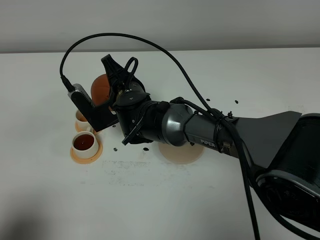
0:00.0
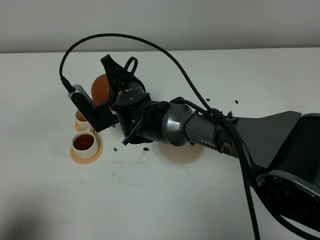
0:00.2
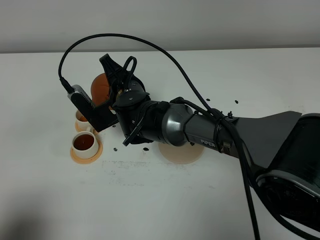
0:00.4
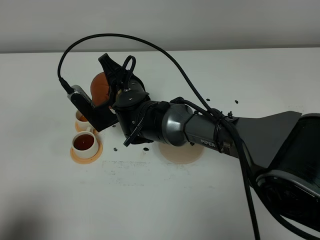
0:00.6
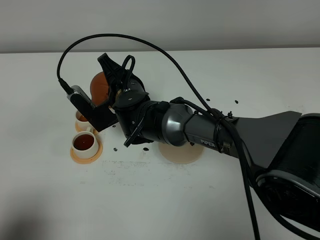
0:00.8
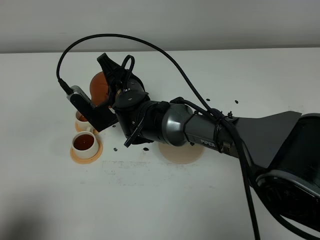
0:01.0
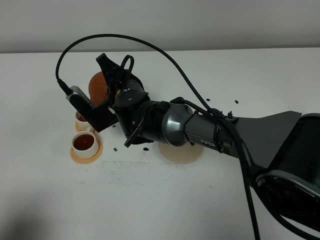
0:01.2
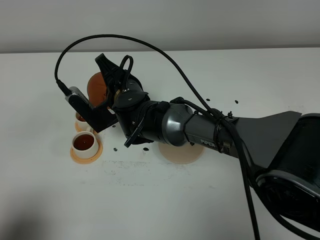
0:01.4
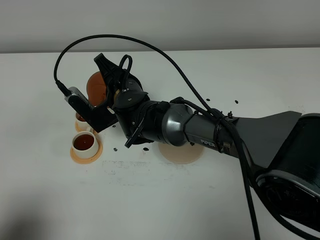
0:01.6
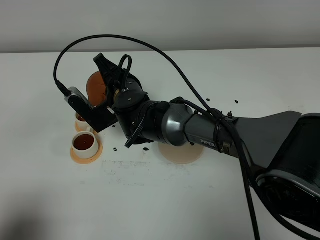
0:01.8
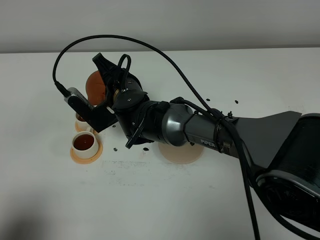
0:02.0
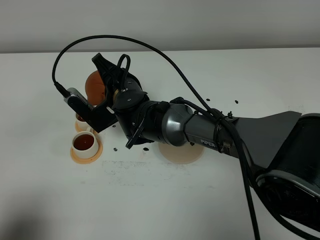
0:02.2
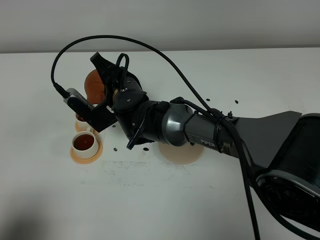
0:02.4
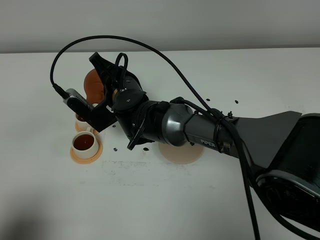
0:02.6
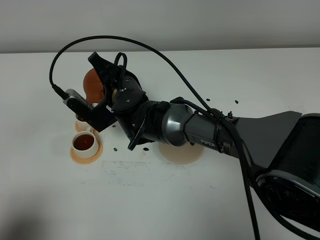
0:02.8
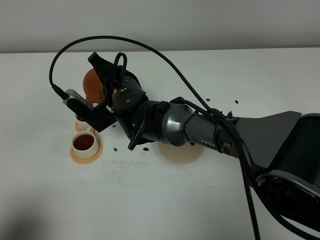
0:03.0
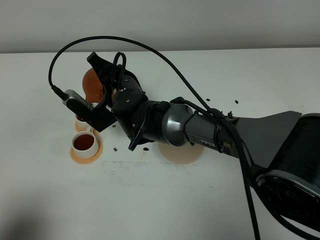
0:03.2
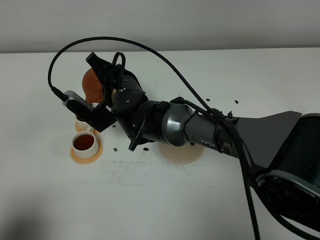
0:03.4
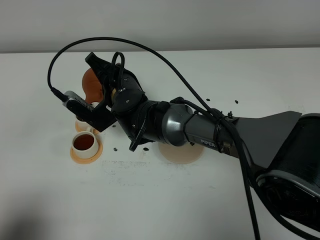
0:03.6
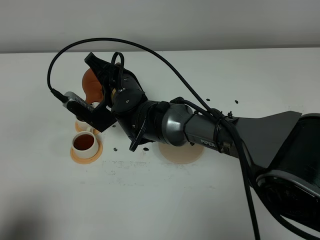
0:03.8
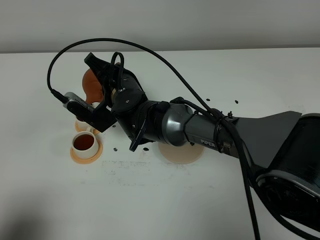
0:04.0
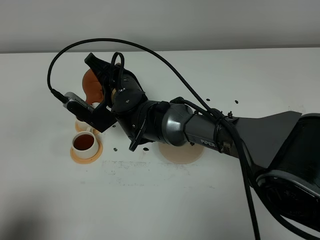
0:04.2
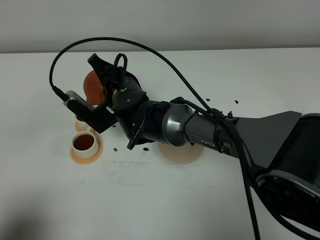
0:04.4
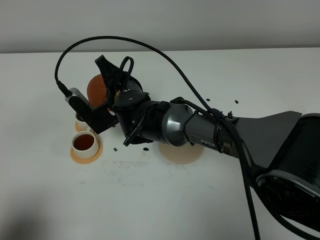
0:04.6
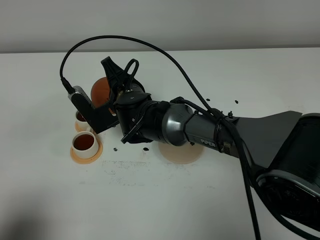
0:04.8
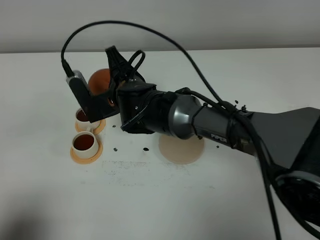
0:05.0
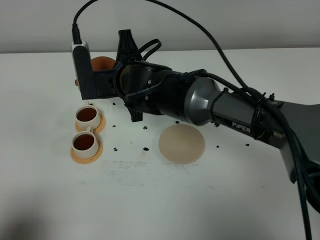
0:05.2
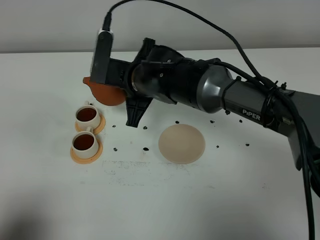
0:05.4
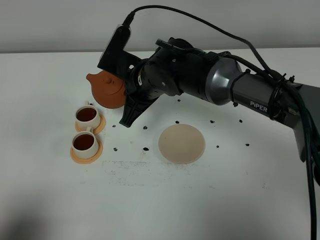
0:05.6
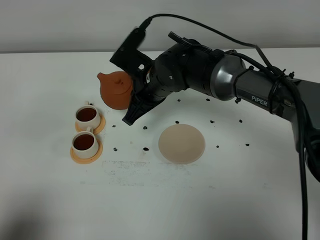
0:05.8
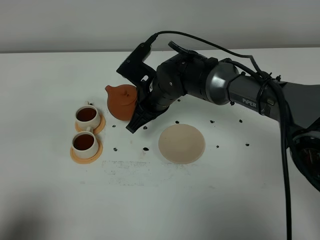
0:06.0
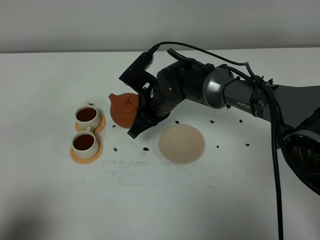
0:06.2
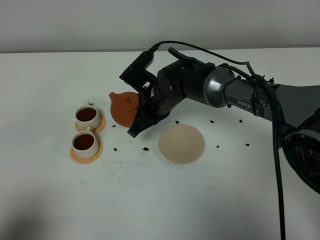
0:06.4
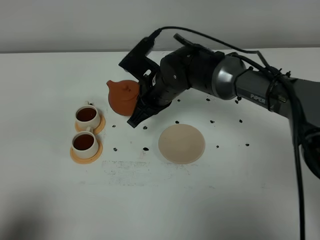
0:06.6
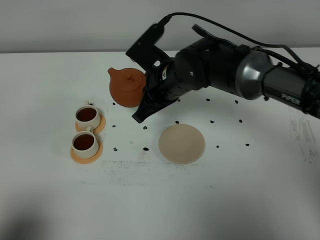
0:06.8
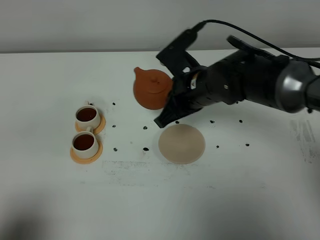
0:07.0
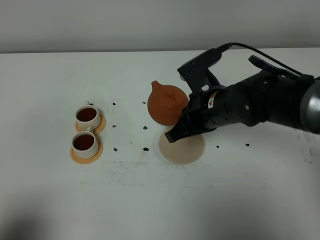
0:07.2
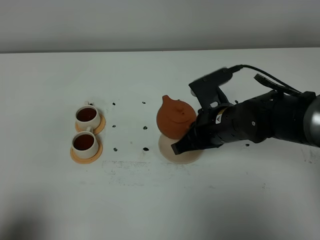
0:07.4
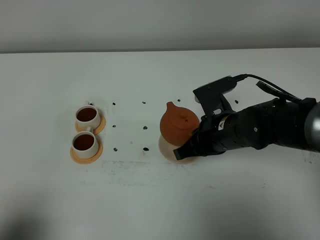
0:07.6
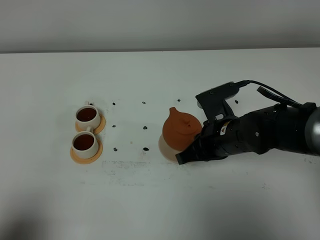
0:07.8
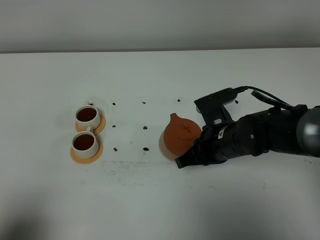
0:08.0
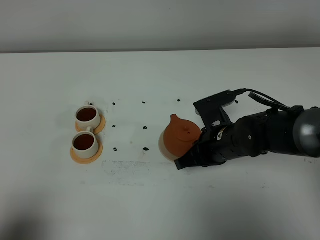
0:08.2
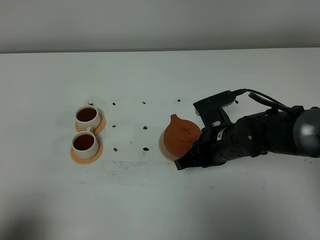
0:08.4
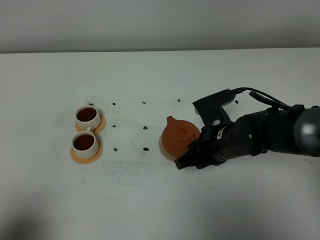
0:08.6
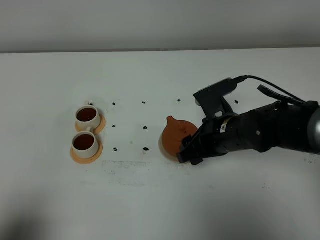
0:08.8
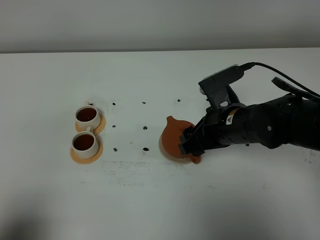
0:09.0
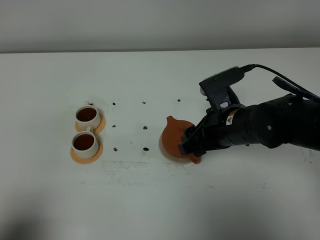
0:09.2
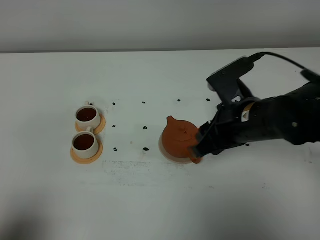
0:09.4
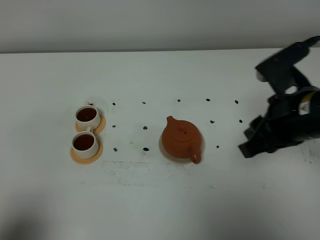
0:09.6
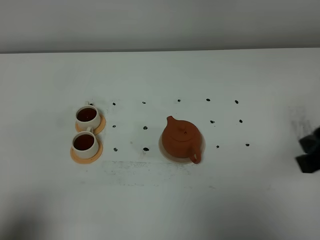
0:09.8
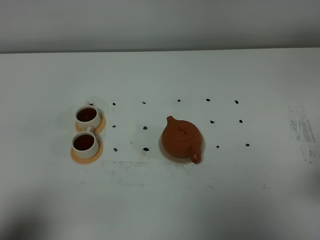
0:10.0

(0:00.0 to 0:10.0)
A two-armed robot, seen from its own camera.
Task of the whole recording: grasp the brown teapot and pour the tea into the two white teacups one by one, put the brown teapot back in its original place.
Step, 0:00.0 - 0:05.4: Pour tea into the teacup with the right gripper.
0:00.0 - 0:04.2: There are only small adjustments of the grippers.
0:04.2 - 0:05.8: The right gripper is displaced to the right by approximately 5 cm.
0:05.8 - 0:07.2: The right gripper is displaced to the right and backward by about 10 cm.
0:07.2 - 0:08.6: The right gripper moves downward, some 5 cm, and opens up.
0:08.6 - 0:10.0: The right gripper heads backward, upward and to the right, covering about 30 cm, and closes.
